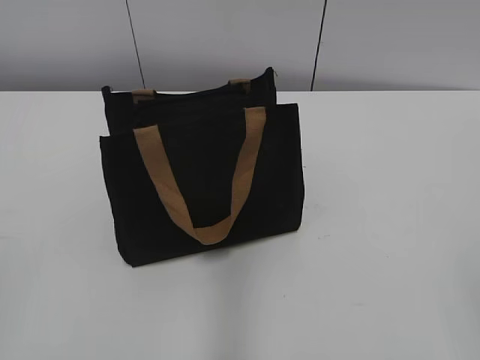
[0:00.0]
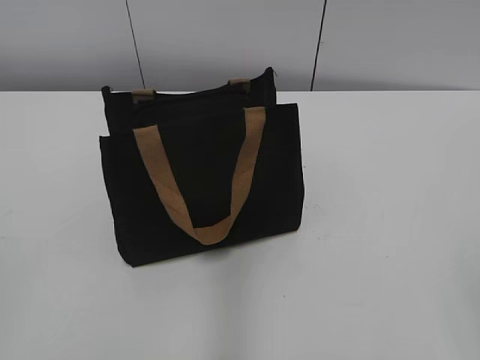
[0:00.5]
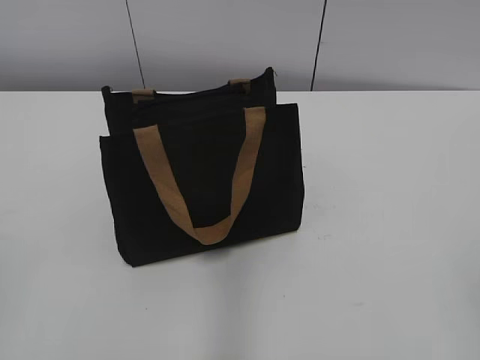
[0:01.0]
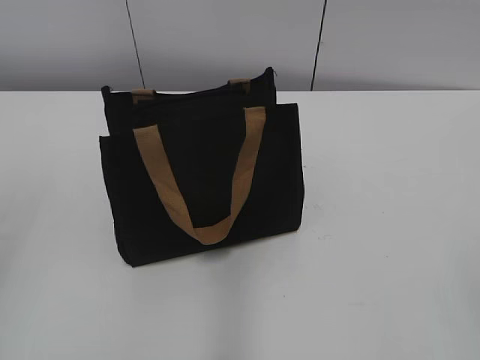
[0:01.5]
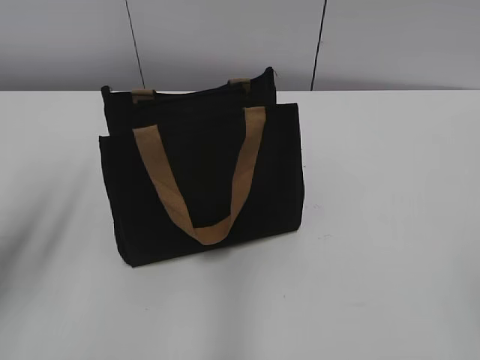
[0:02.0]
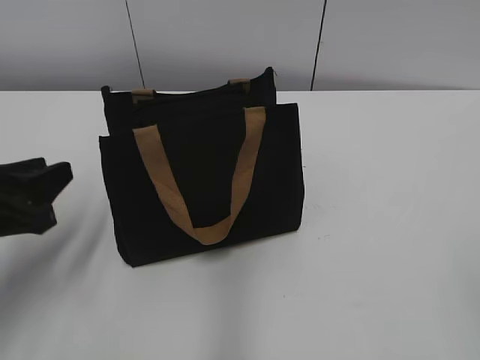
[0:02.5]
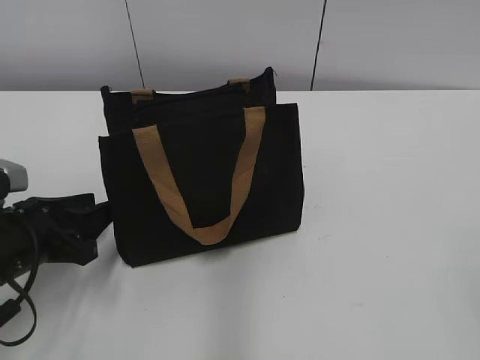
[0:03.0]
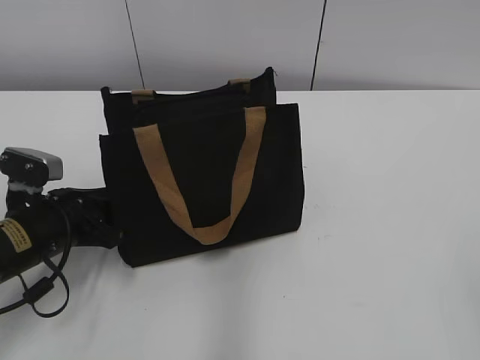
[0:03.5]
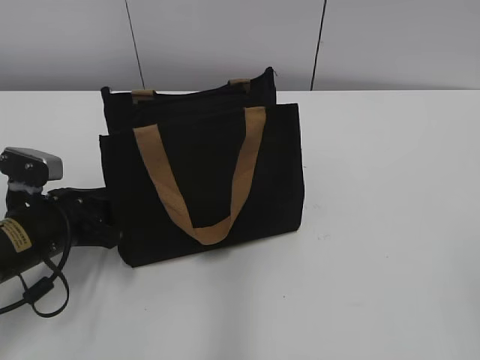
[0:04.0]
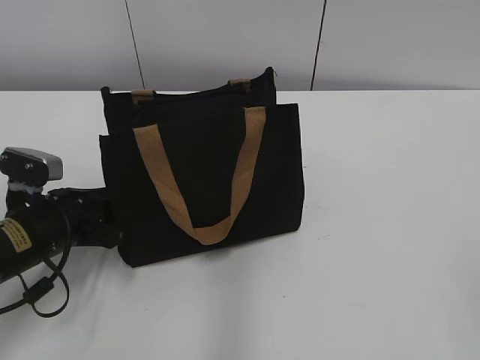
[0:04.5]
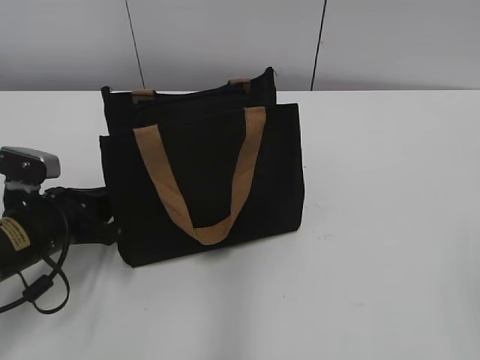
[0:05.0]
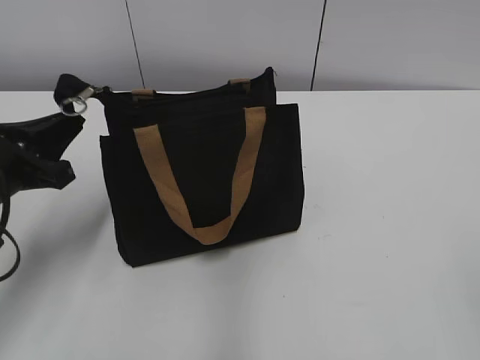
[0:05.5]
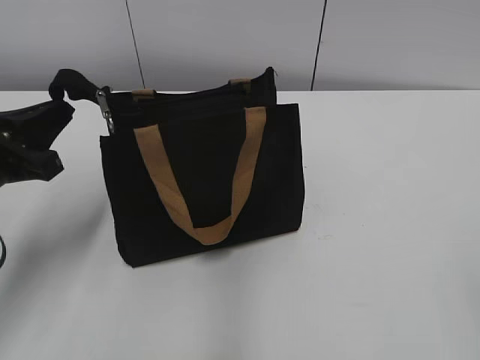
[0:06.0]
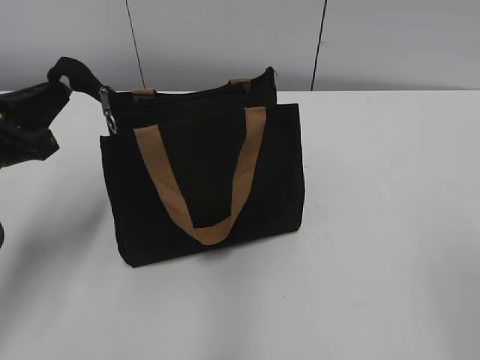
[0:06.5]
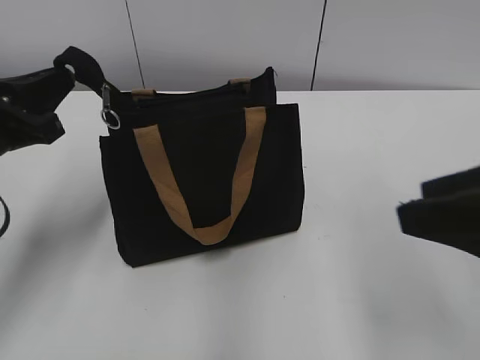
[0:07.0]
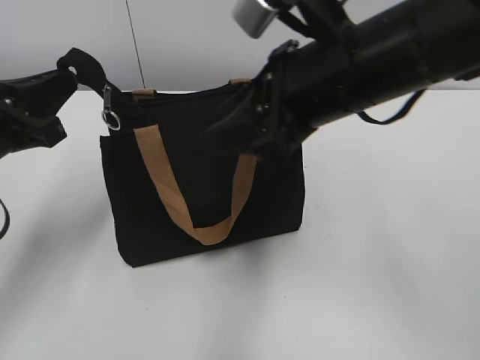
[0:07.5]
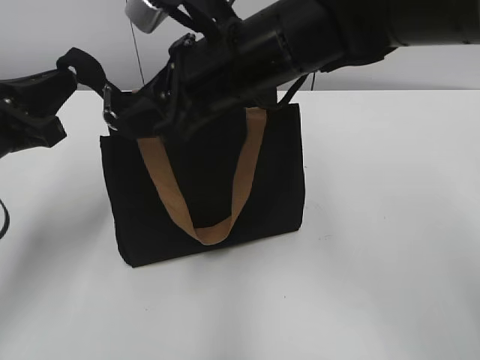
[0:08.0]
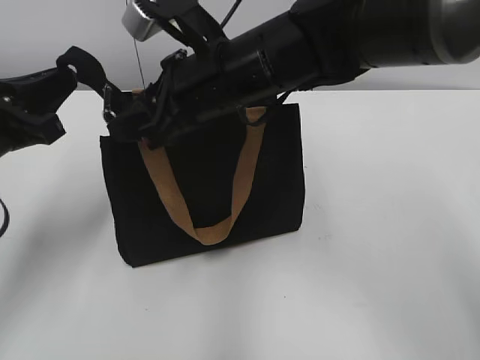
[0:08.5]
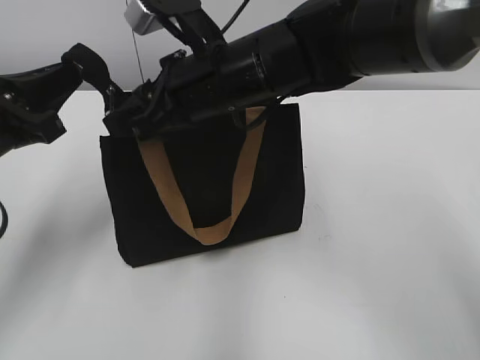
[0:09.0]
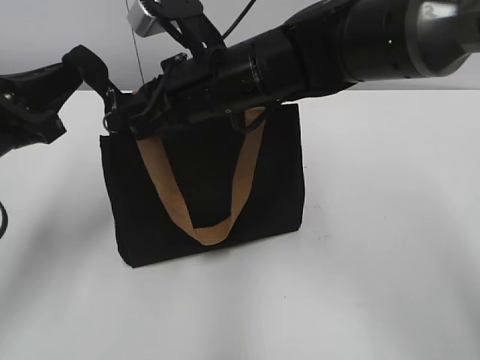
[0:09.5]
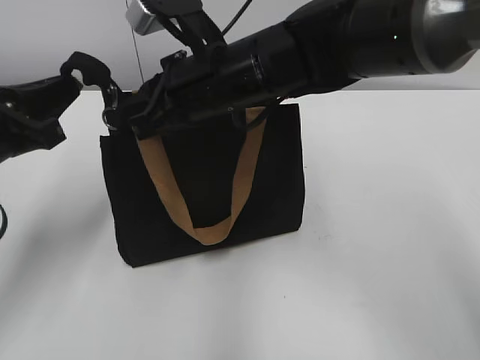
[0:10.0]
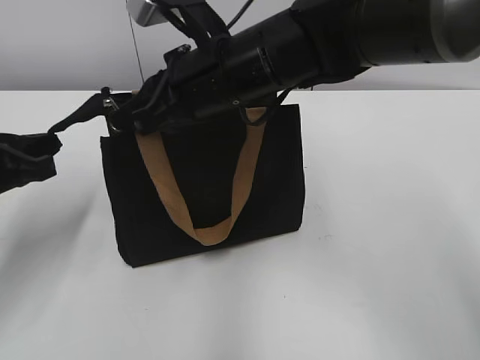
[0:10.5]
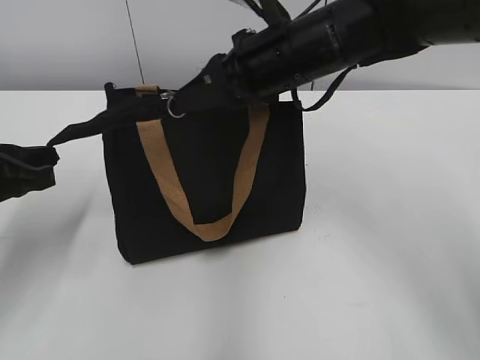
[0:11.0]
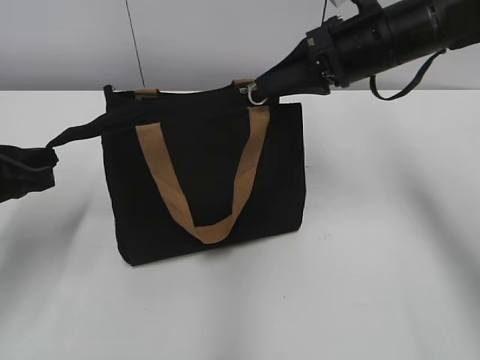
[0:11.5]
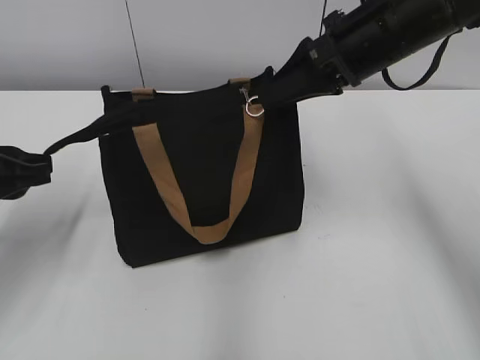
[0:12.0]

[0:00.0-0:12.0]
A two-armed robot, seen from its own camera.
Step, 0:00.0 to 0:11.5: Zip up the bag with your right hand.
0:02.0 to 0:04.0: The left gripper goes about 20 cm downward.
0:04.0 to 0:06.0: The left gripper shifts some 10 cm upward, and closes.
0:06.0 to 0:08.0: The right gripper moves forward and to the left, approximately 40 cm.
0:08.0 to 0:10.0: The right gripper closes its fingers.
0:10.0 to 0:12.0: The right gripper moves to the right, some 15 cm, and opens up.

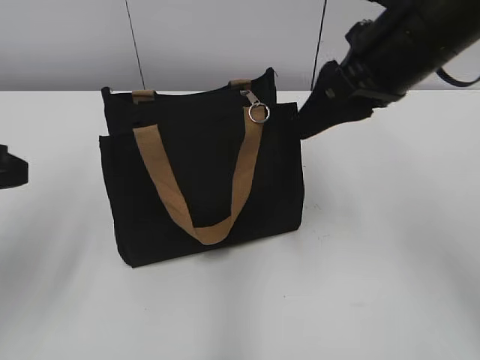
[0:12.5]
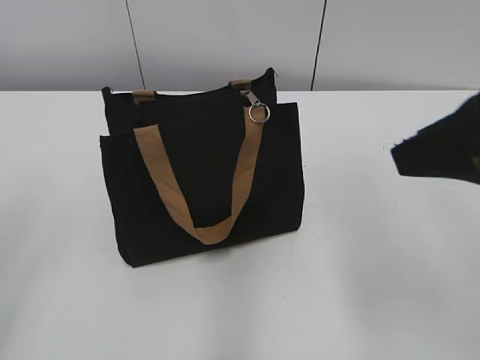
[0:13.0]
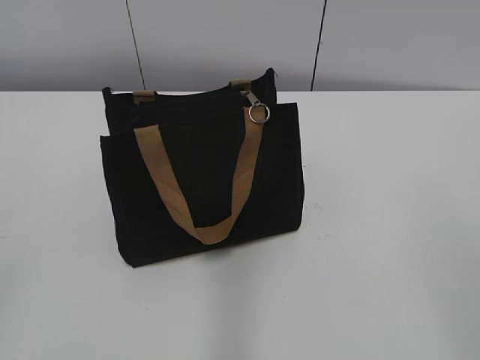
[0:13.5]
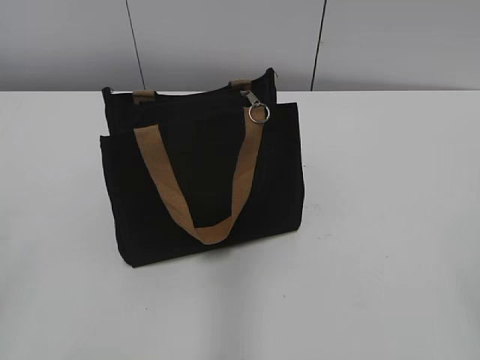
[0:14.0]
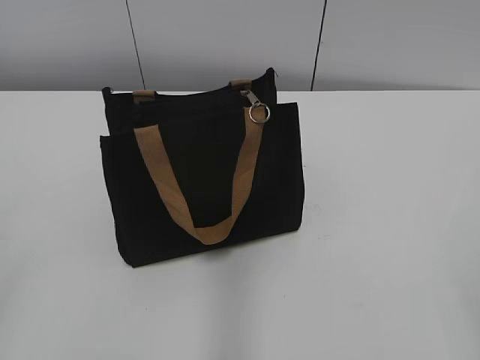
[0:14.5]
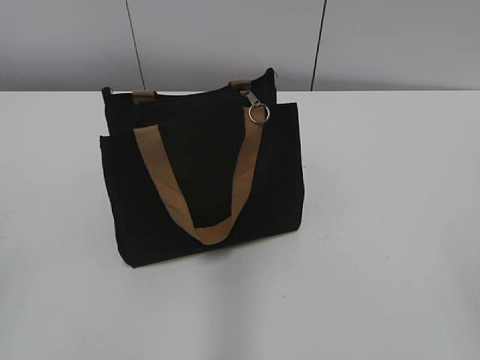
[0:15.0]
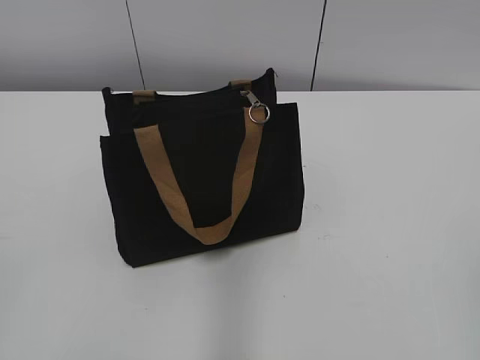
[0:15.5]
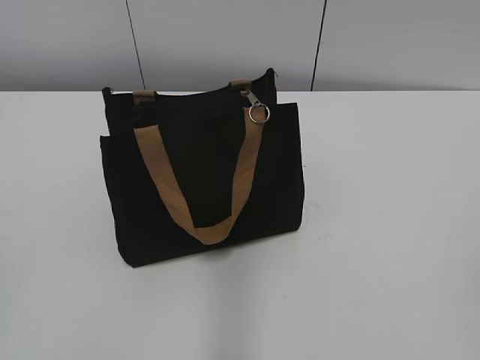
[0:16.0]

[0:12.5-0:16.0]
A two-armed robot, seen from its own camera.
0:12.5 to 0:14.5: The right gripper goes roughly 35 cm backward and to the right; the left gripper is displaced backward by some 15 cm.

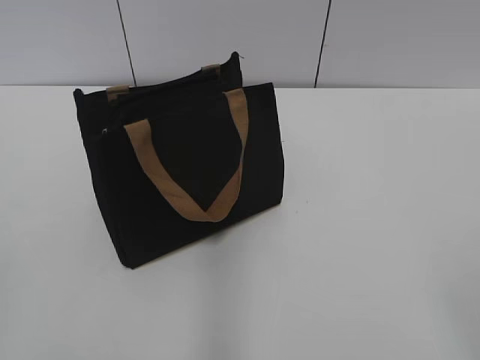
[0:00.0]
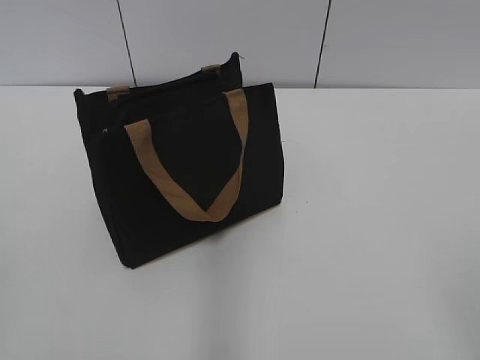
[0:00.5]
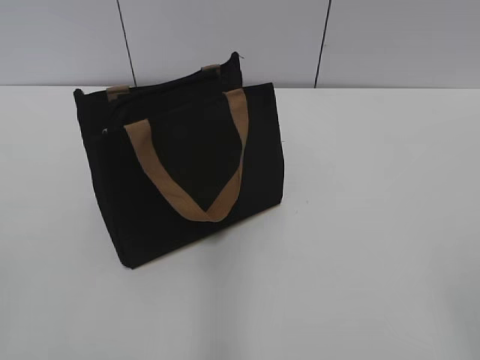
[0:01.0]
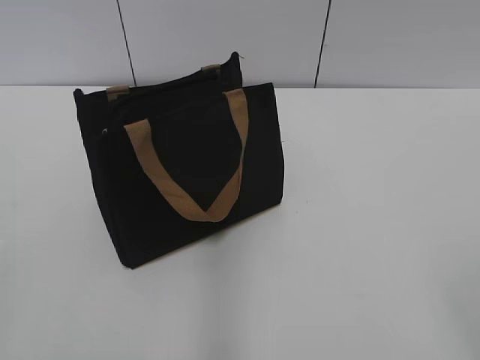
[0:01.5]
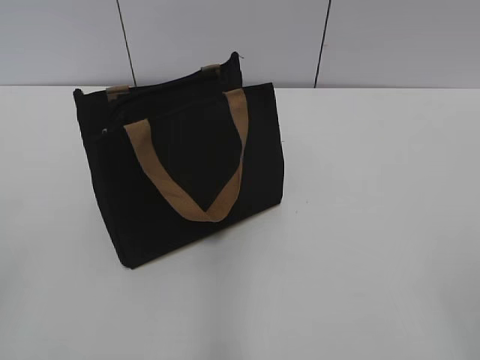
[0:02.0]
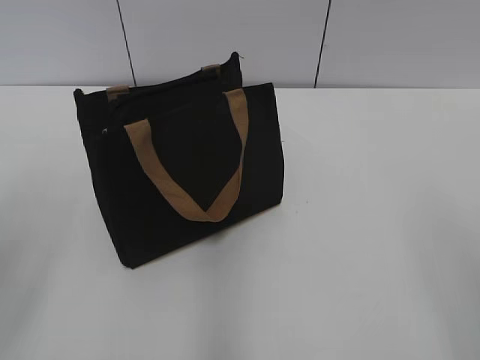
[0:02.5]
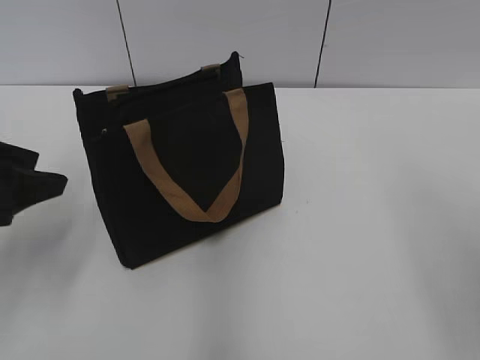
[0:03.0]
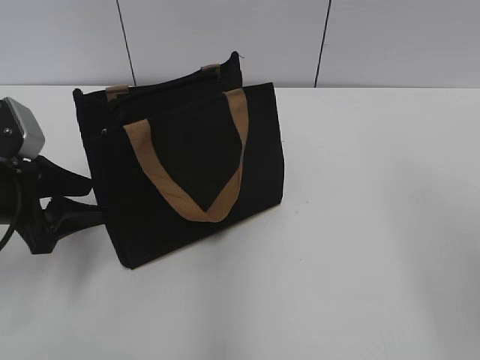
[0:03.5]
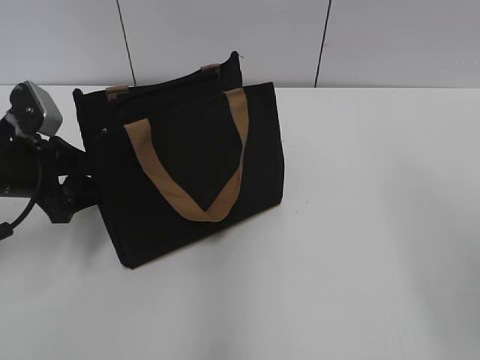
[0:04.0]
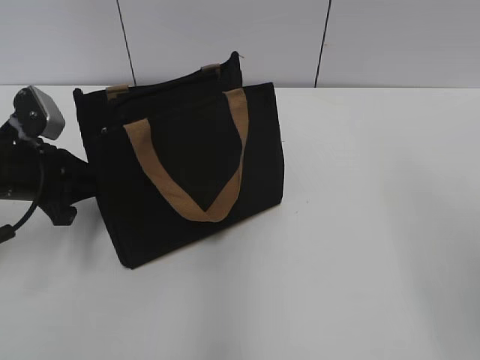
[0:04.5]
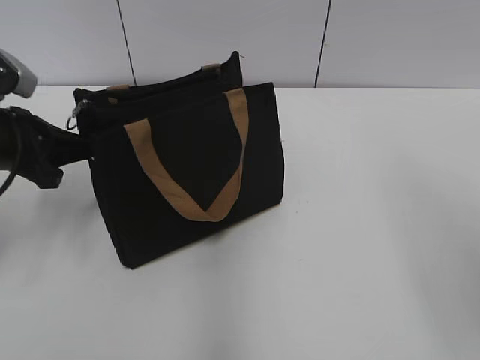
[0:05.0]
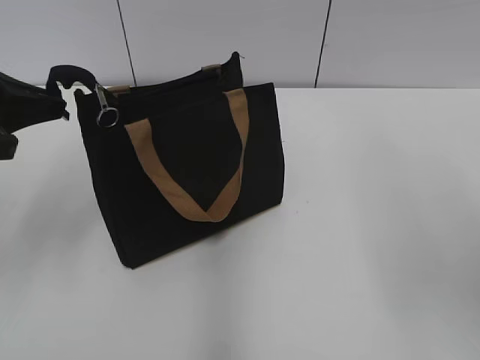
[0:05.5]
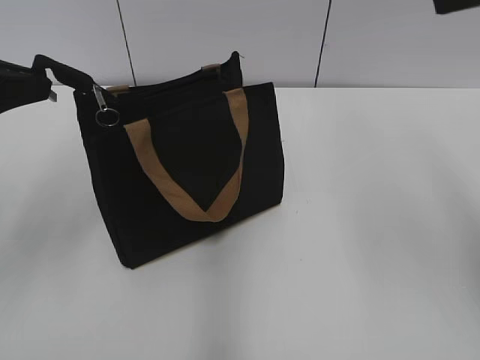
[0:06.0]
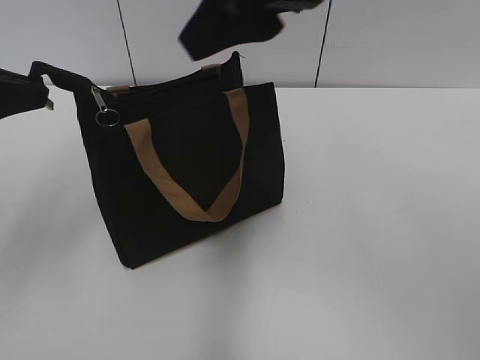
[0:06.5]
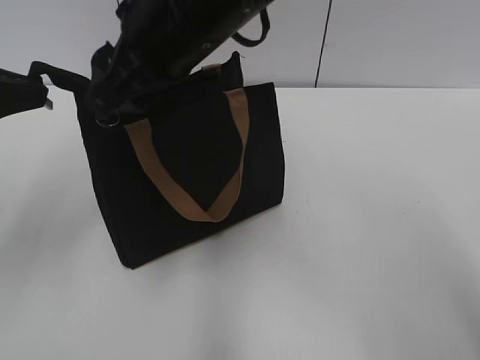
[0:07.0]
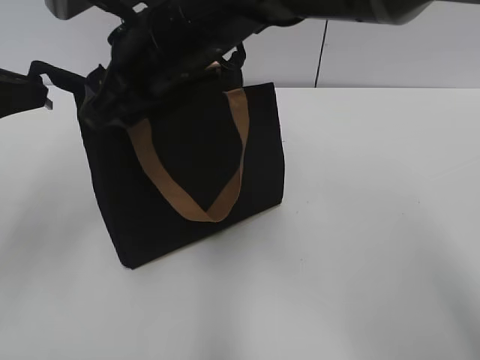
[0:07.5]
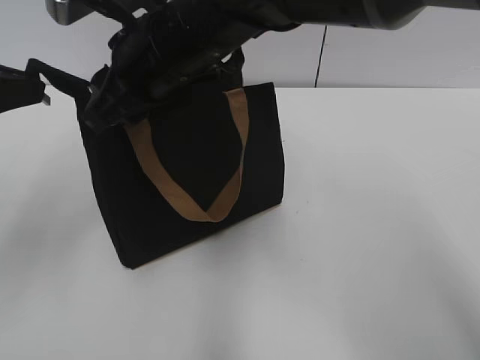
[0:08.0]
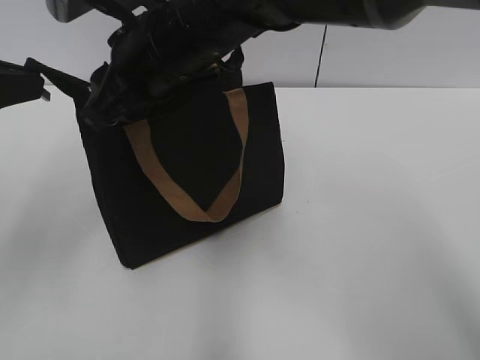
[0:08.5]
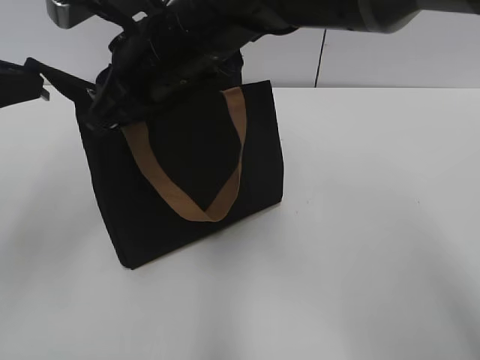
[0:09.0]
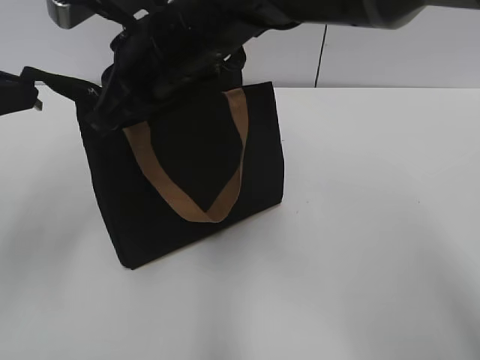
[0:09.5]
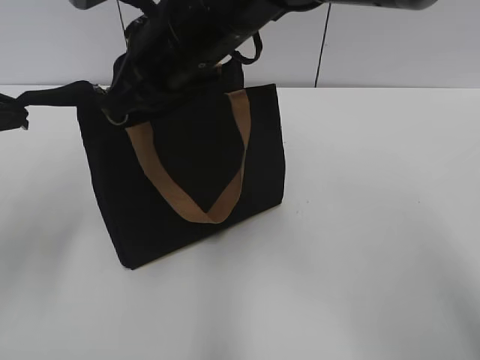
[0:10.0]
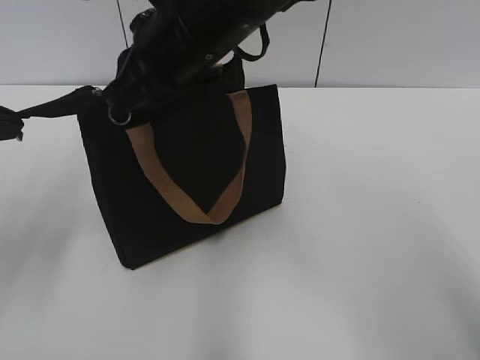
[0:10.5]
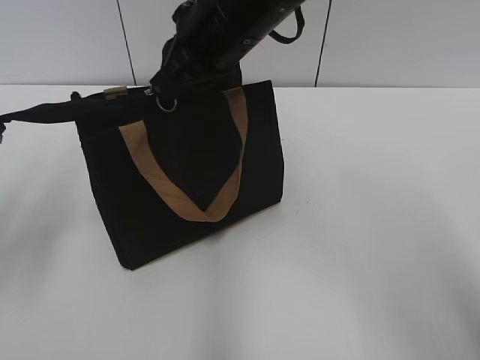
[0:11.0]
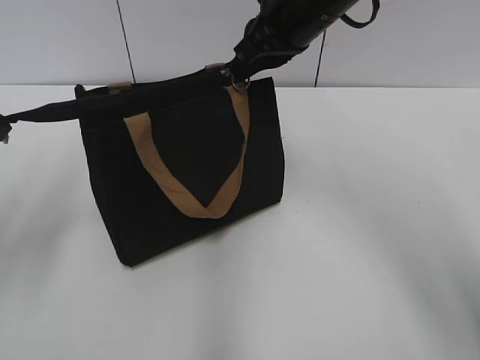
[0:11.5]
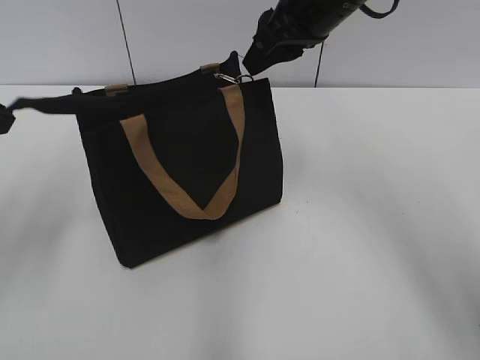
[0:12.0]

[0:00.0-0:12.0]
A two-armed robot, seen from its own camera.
Step, 0:00.0 to 0:11.5: Zip up the bag with your right hand.
0:02.0 to 0:04.0: The left gripper moves forward and downward, about 35 cm.
0:04.0 to 0:06.0: The left gripper goes approximately 15 cm upward and backward, and closes up.
0:06.0 to 0:08.0: The right gripper is displaced to the left and downward by about 30 cm, and closes.
0:08.0 to 0:10.0: The right gripper closes.
0:10.0 to 0:12.0: The right gripper goes approximately 15 cm to the right and forward.
